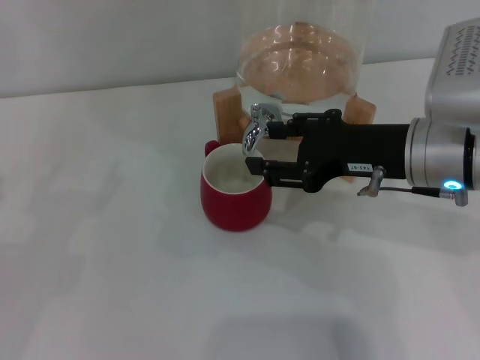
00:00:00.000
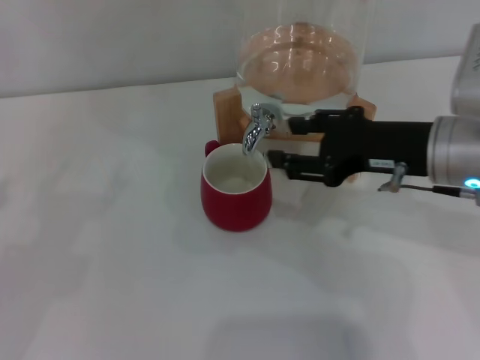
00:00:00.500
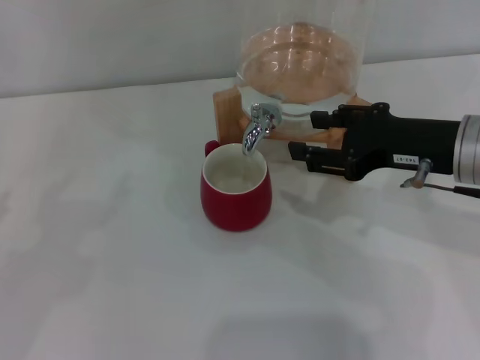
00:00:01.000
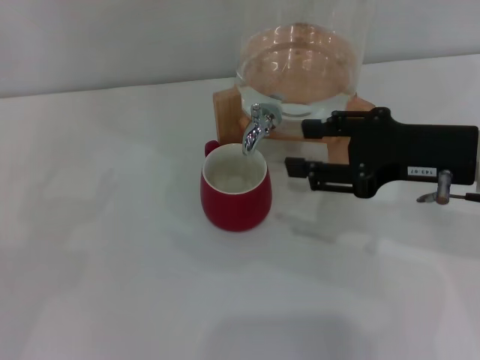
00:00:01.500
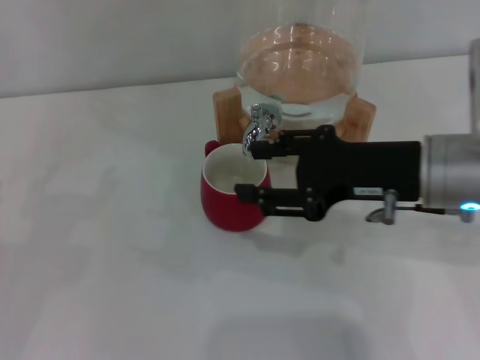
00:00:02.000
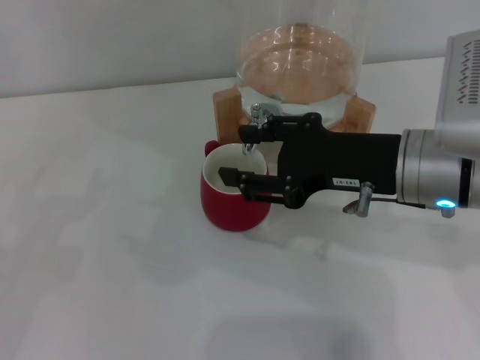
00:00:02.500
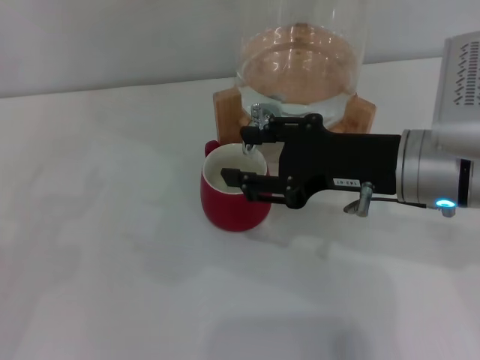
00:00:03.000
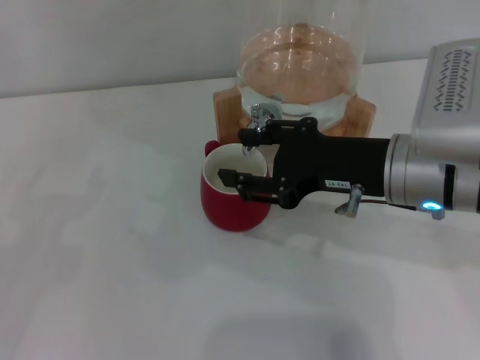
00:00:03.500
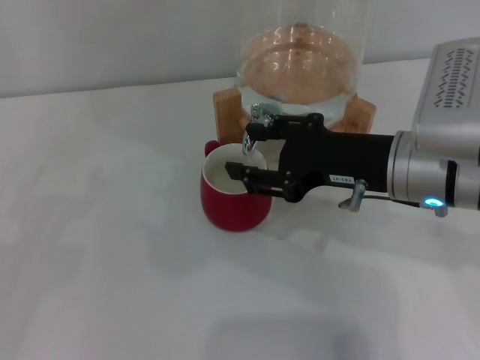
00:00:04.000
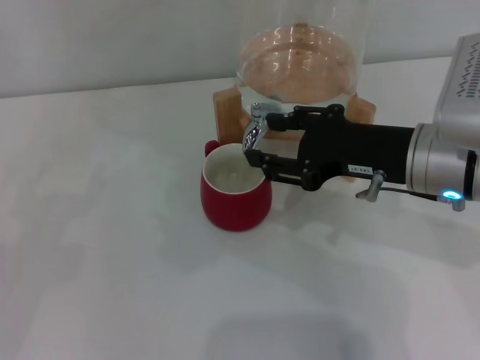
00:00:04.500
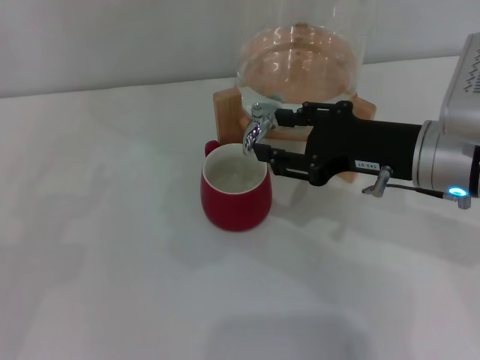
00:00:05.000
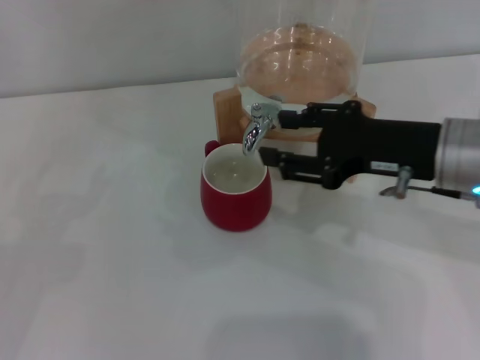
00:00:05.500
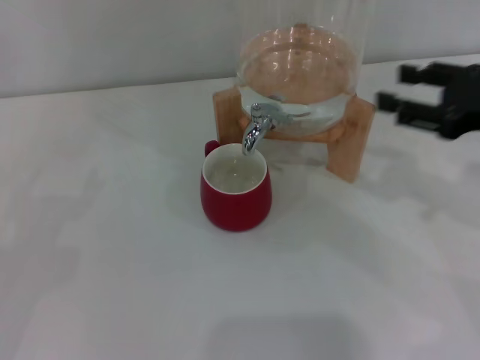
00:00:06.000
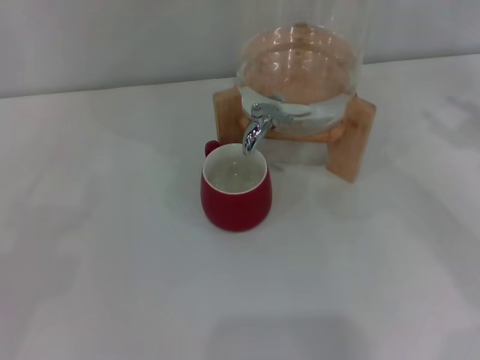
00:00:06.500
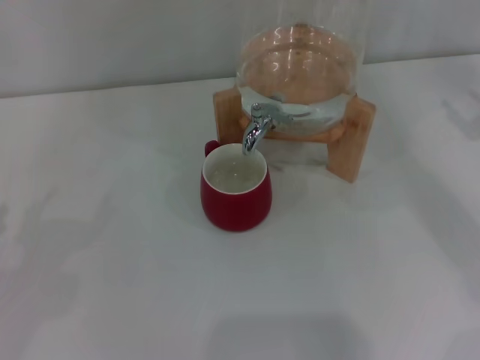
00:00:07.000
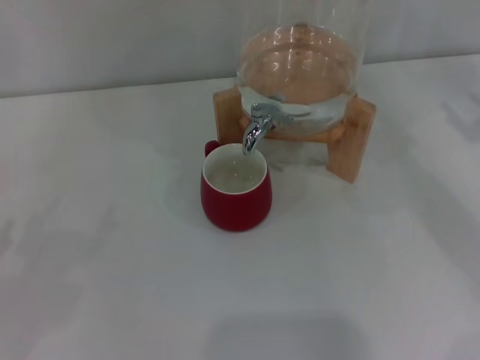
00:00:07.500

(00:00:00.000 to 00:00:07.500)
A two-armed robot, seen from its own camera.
Task of the whole recording: the left gripper pick up the red cup and place it horizontally under the faucet, the right gripper turn on the faucet to fill the cup, and then turn off the faucet.
Step, 00:00:02.000 - 00:00:05.500: Close the dispenser valve with the right gripper.
00:00:00.000 - 00:00:05.500: The grippers make only small movements.
00:00:05.500 - 00:00:07.500: The right gripper heads to the right, covering roughly 20 cm.
